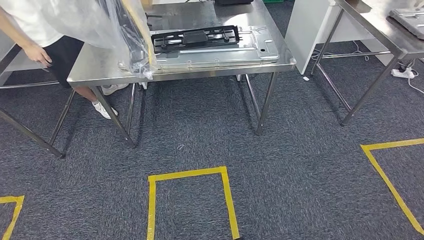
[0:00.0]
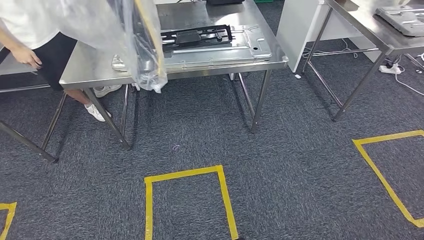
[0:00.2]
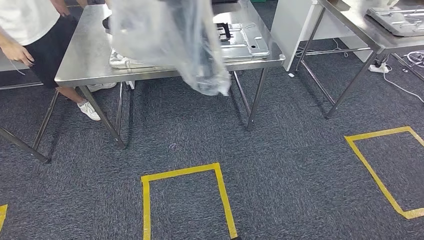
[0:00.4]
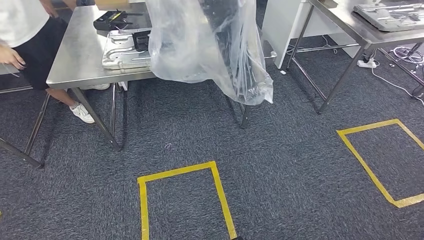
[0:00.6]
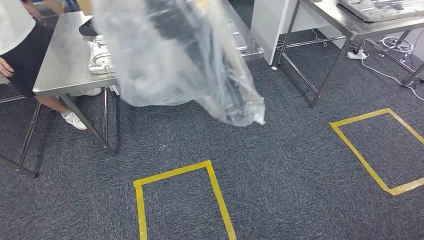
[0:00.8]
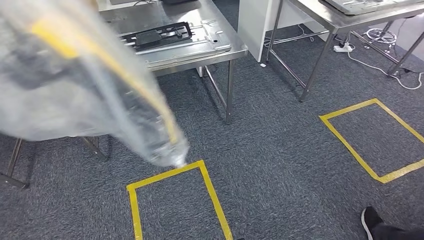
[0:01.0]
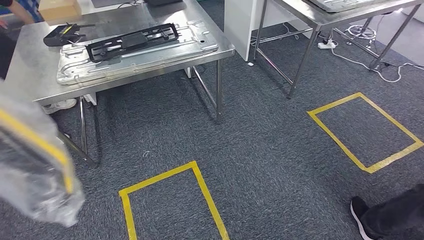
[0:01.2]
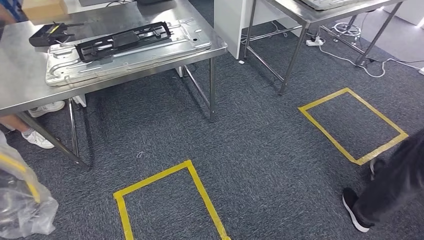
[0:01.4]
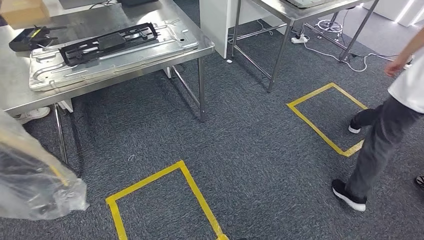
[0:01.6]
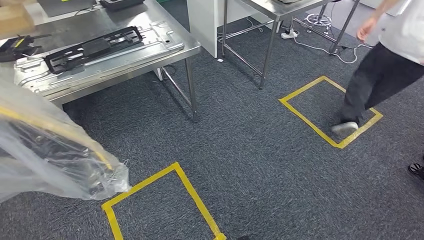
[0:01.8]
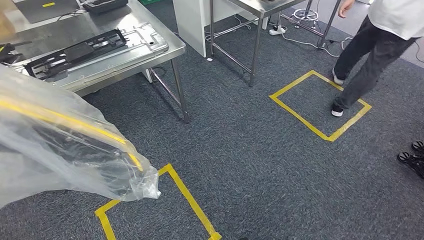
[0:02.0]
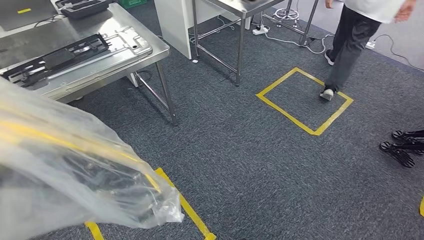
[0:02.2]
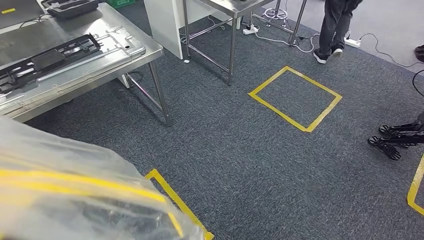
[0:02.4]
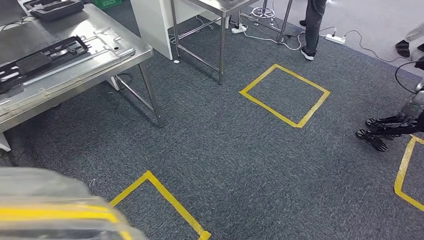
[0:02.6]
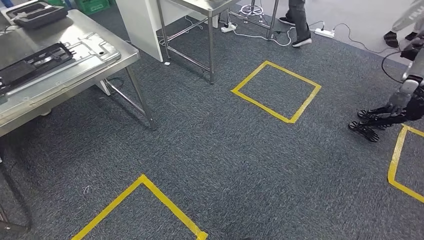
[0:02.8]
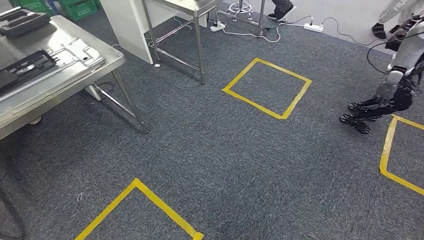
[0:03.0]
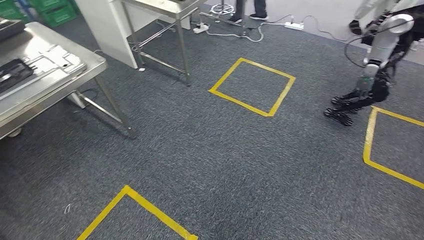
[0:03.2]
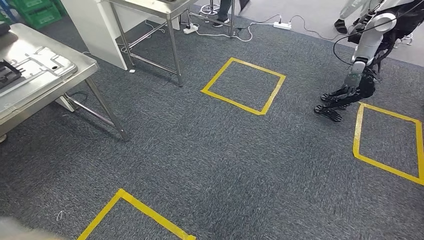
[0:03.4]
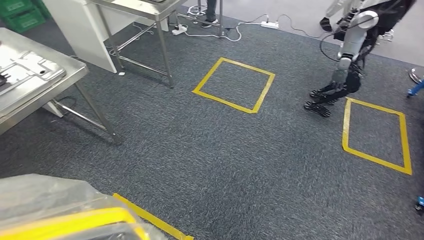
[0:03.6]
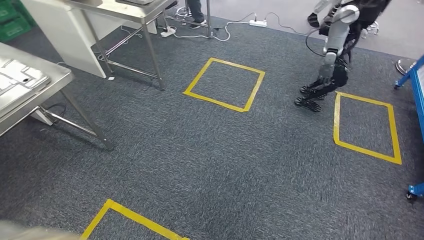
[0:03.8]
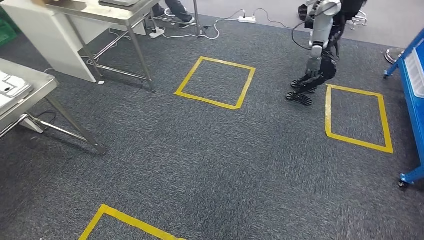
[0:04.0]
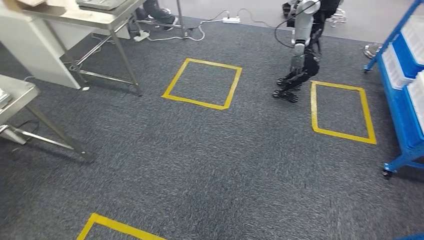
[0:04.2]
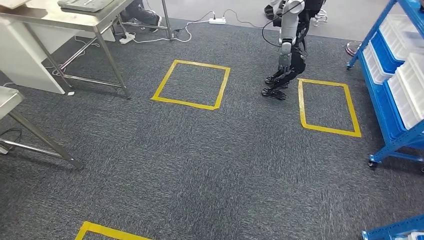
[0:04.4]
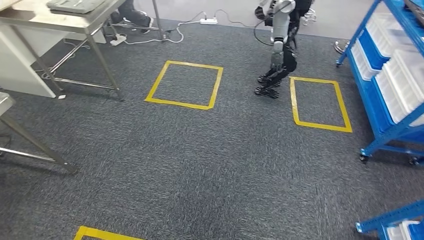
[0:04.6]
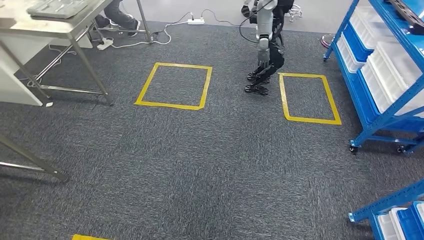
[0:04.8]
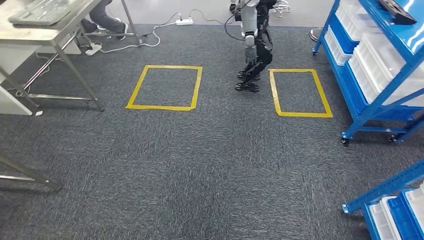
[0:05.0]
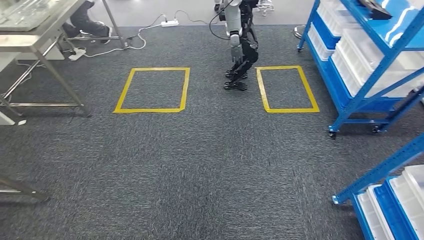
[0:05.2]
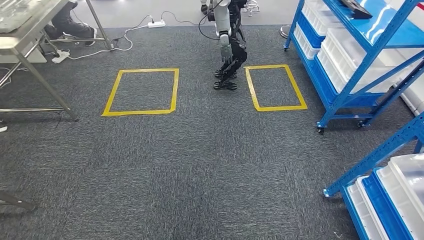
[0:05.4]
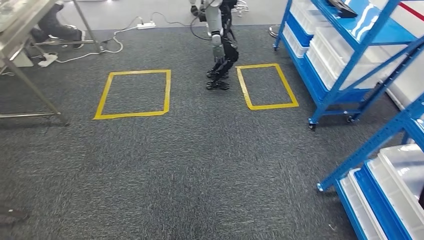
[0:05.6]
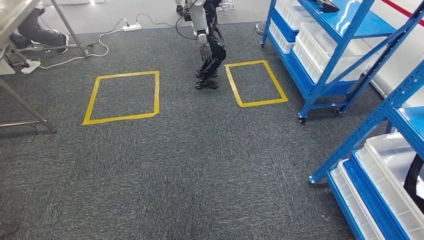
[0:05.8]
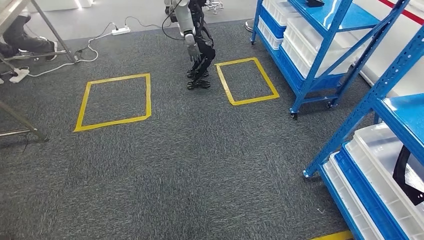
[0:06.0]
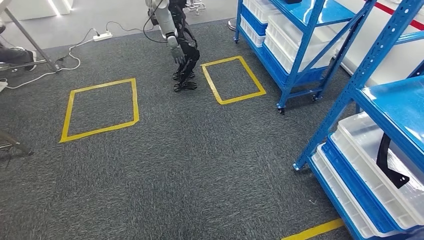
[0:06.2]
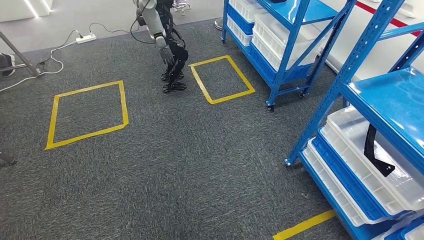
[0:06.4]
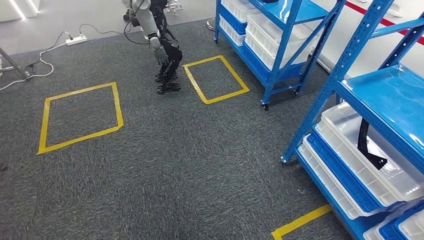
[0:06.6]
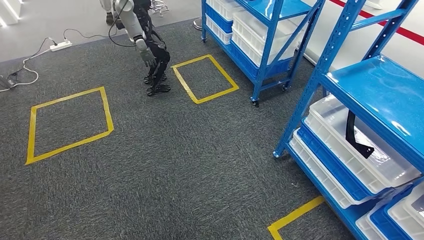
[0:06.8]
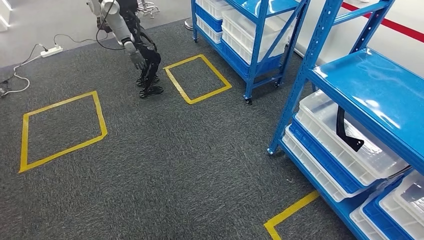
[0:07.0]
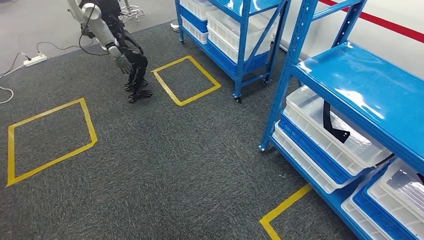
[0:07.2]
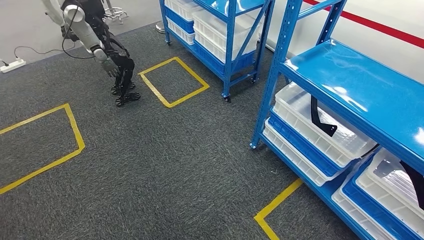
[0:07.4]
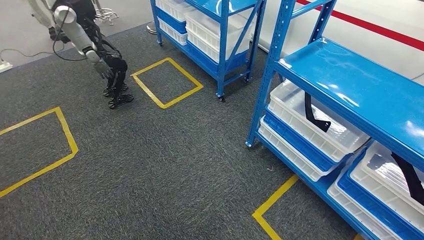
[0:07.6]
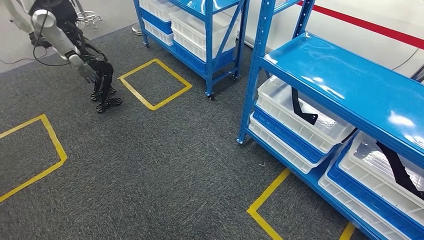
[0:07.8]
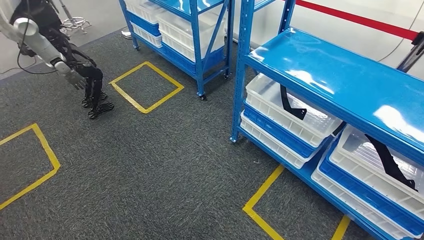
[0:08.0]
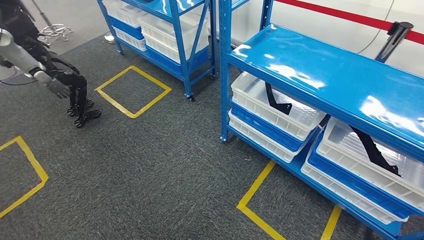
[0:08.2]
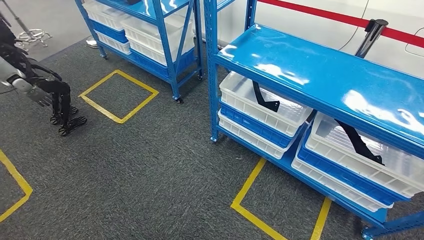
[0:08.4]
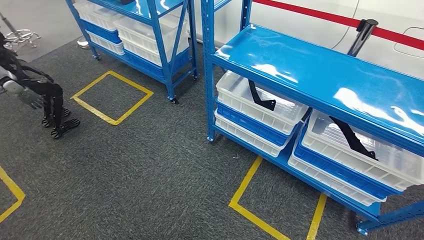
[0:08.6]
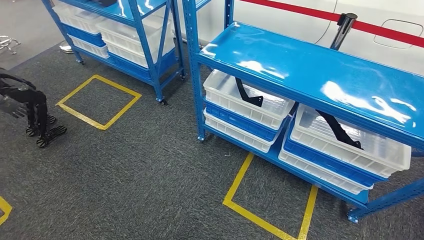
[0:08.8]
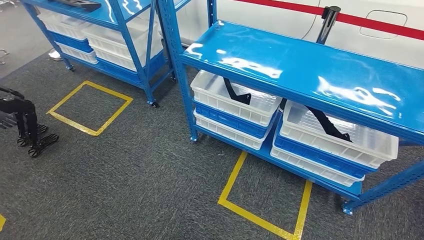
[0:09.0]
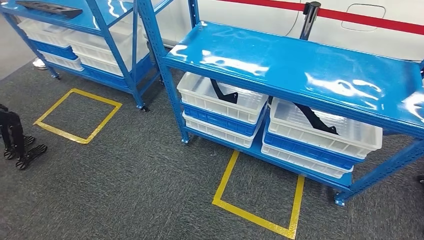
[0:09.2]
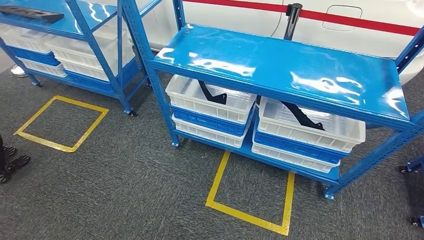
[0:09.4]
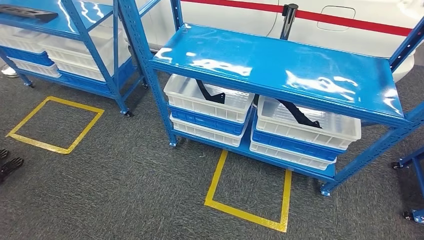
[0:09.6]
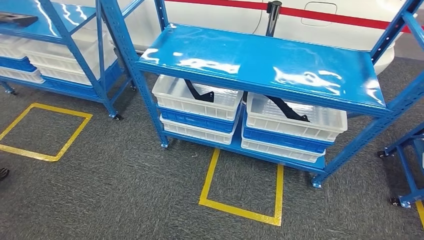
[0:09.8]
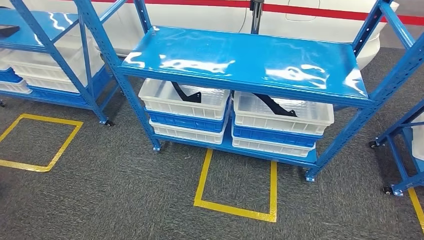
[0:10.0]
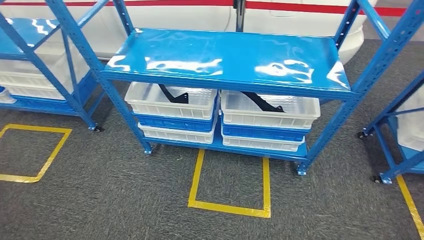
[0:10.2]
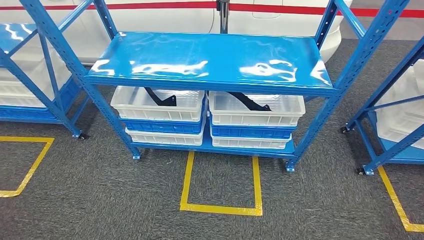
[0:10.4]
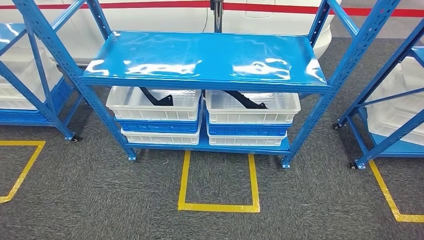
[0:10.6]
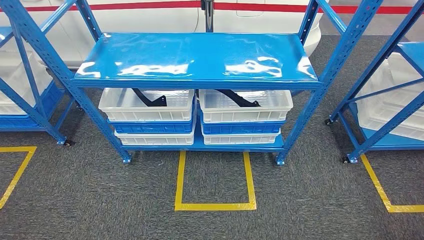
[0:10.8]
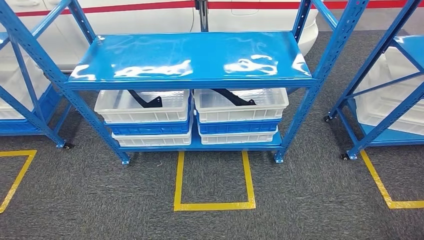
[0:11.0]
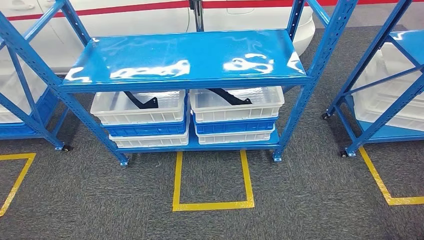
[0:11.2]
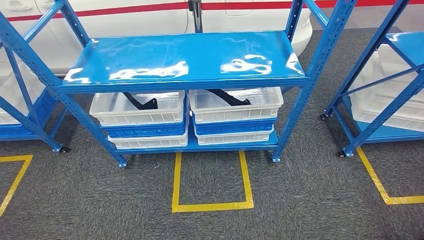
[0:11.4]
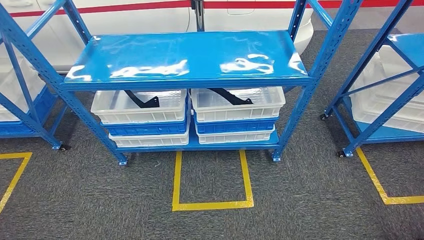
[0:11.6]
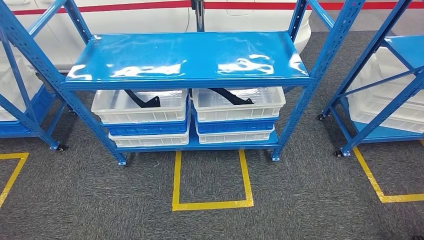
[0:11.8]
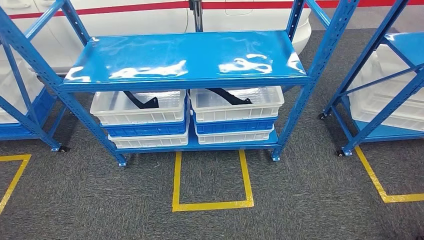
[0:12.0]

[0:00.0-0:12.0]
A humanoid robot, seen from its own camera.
Step, 0:00.0 to 0:12.0: Return to the initial position at the shelf.
